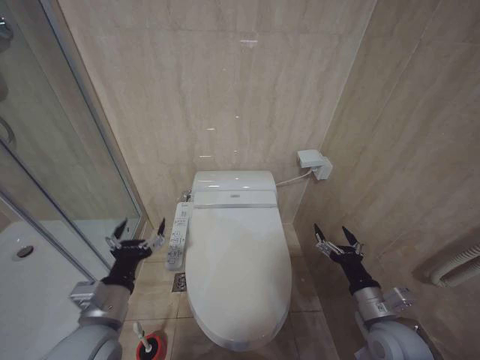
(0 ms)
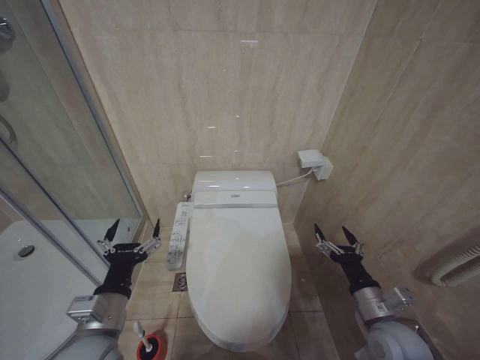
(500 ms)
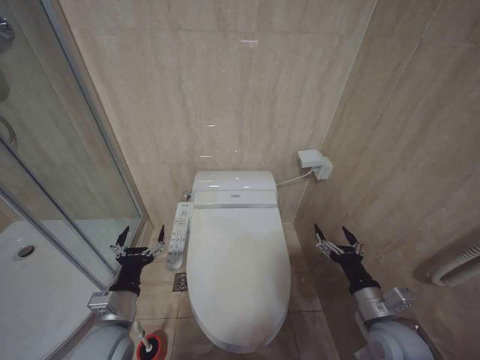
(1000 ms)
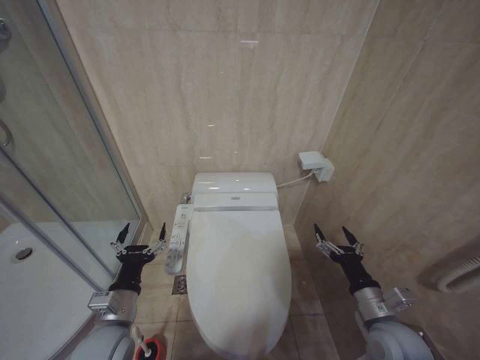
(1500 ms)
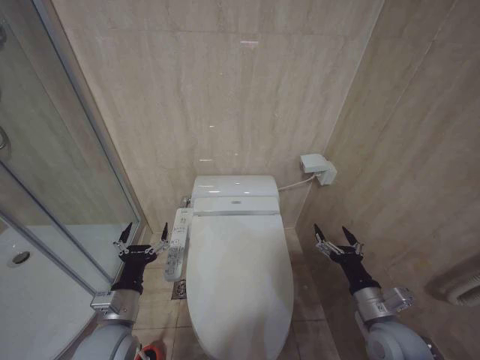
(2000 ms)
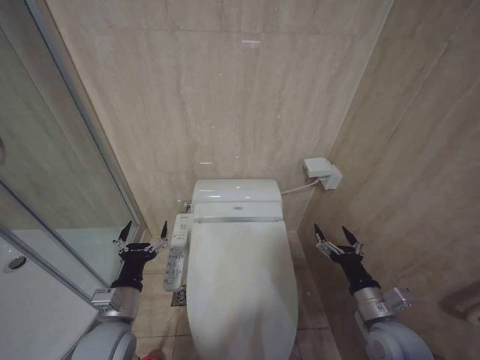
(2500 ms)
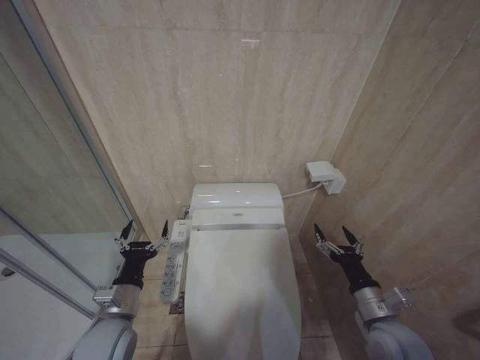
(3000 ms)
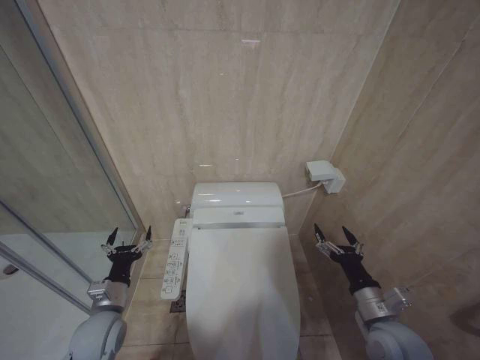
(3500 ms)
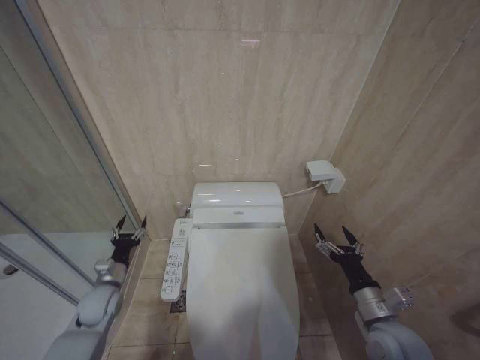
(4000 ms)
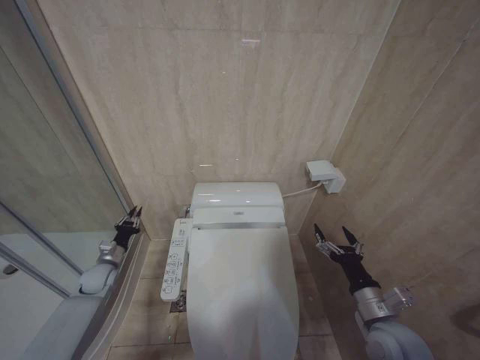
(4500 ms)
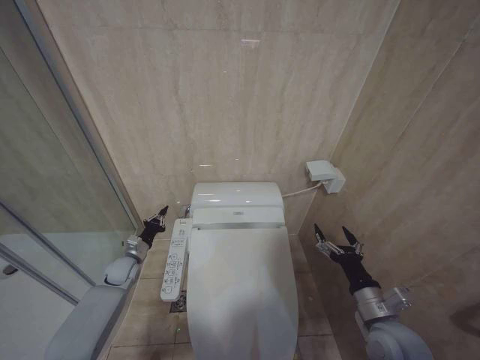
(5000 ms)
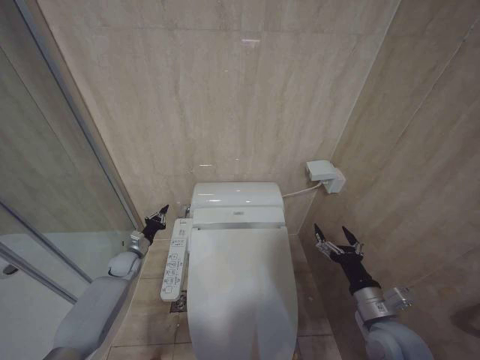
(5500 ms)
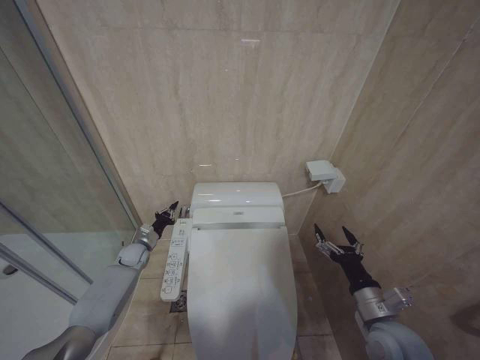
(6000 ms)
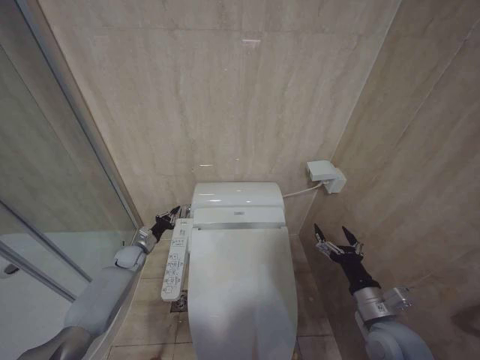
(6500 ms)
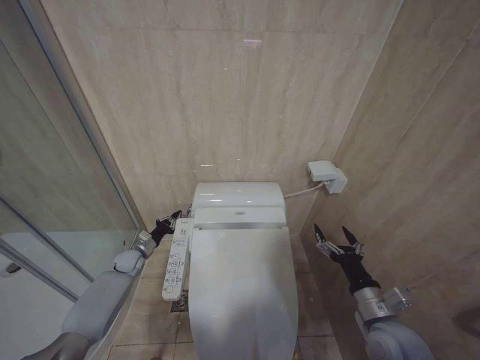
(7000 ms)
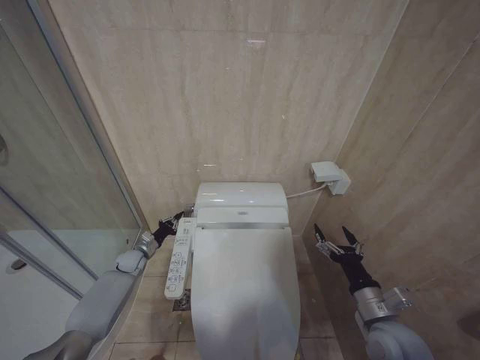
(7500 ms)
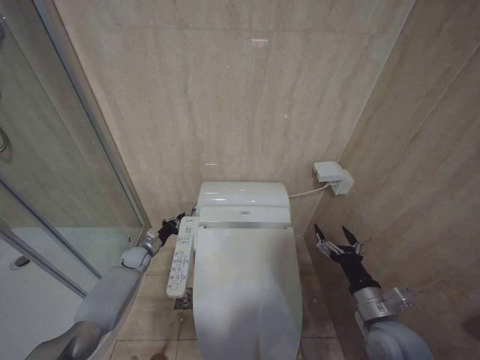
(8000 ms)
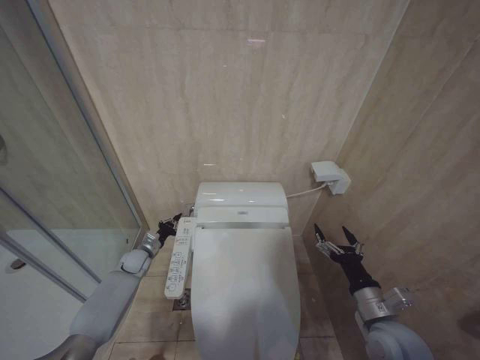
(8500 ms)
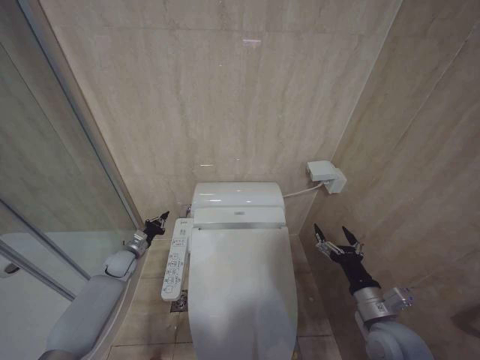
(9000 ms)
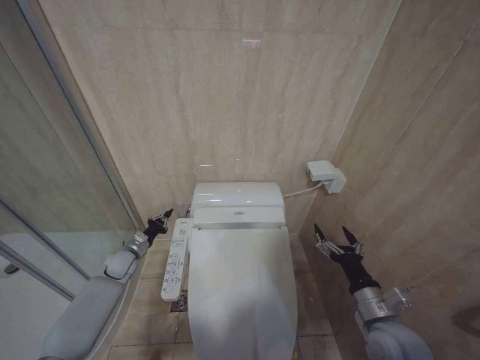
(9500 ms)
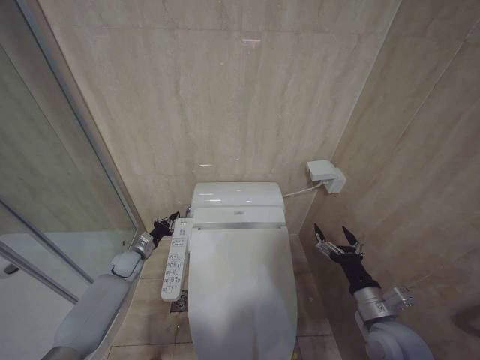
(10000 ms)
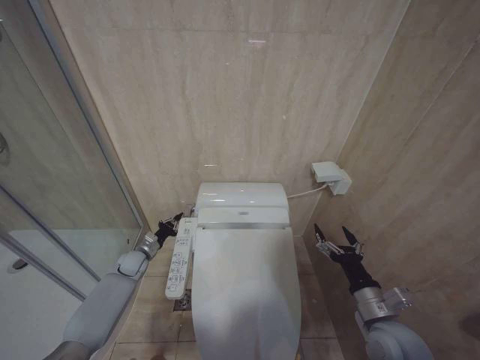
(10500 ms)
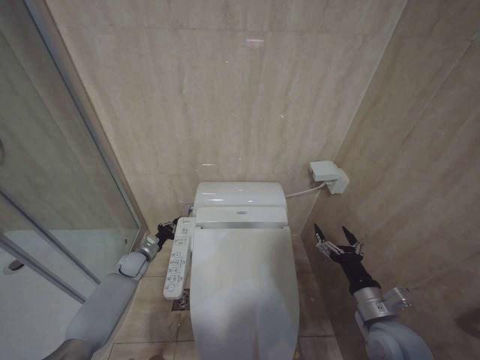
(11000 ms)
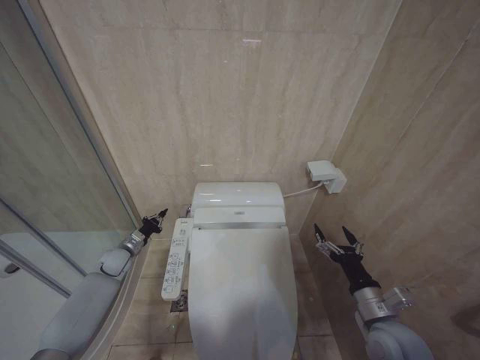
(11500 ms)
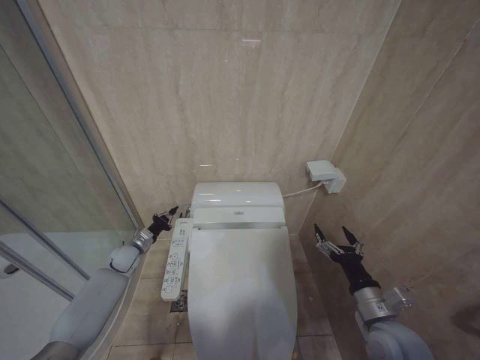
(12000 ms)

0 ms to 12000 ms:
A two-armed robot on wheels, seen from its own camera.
Task of the whole recording: Open the toilet lid, clean the toilet bowl with a toilet brush, close the toilet lid, and flush.
0 ms to 2000 ms: The left gripper moves about 5 cm.
2000 ms to 4000 ms: The left gripper is displaced forward, to the left and downward by some 20 cm.
4000 ms to 6000 ms: The left gripper travels forward by about 15 cm, and closes its fingers.
6000 ms to 8000 ms: There are only small adjustments of the grippers.

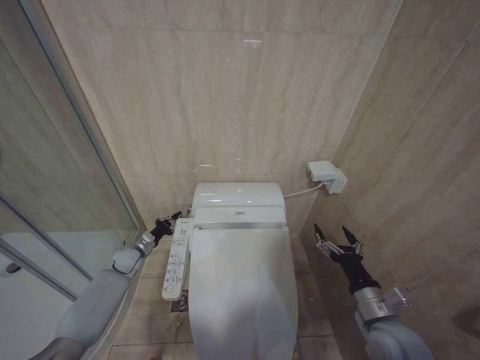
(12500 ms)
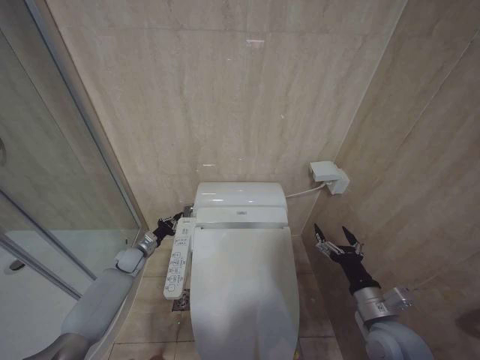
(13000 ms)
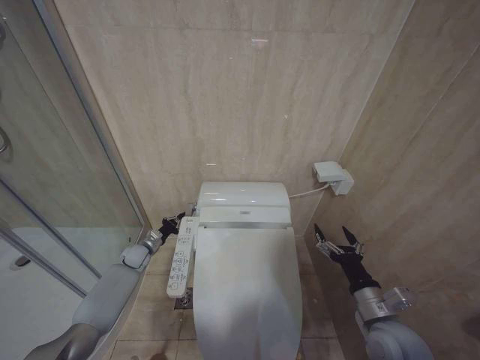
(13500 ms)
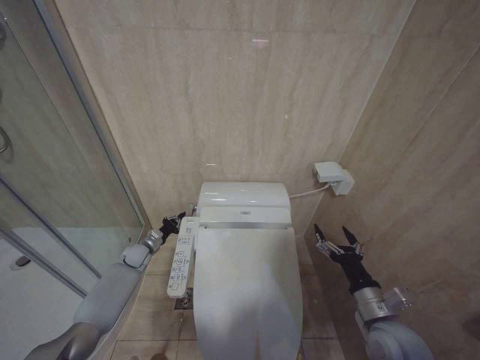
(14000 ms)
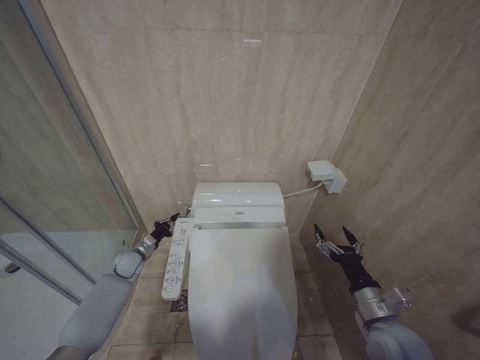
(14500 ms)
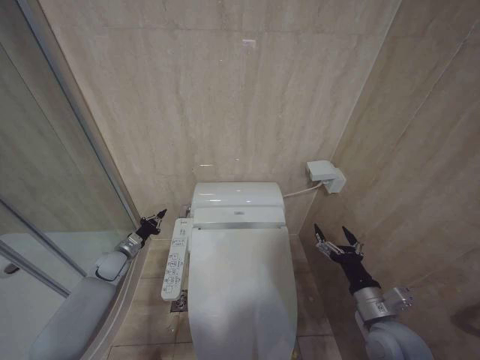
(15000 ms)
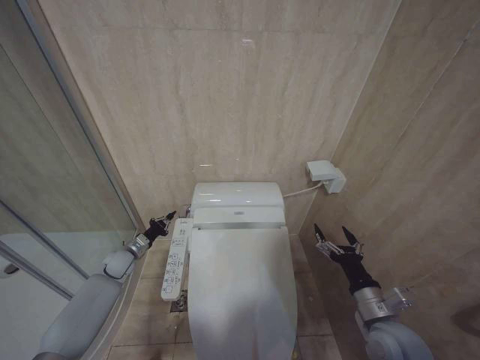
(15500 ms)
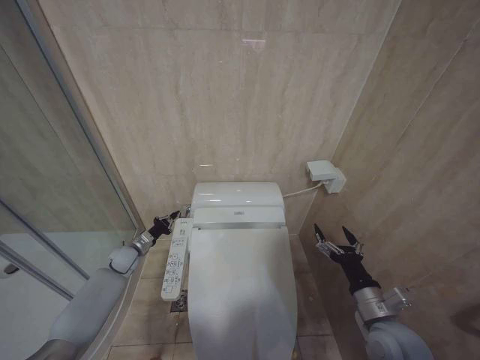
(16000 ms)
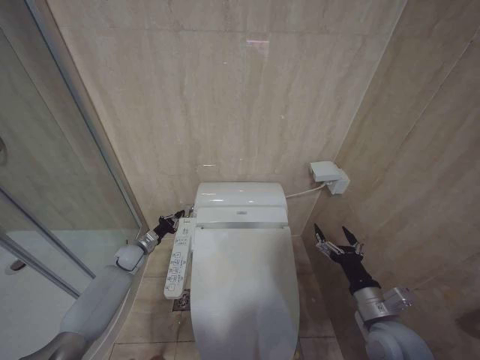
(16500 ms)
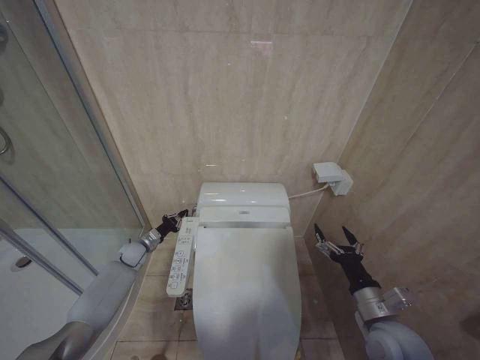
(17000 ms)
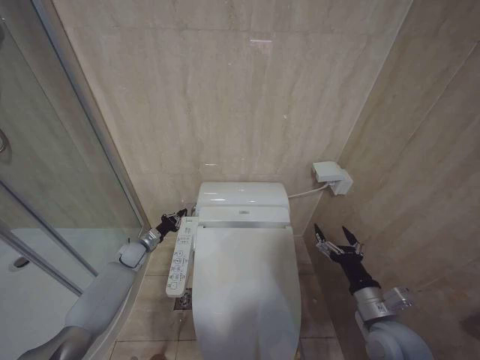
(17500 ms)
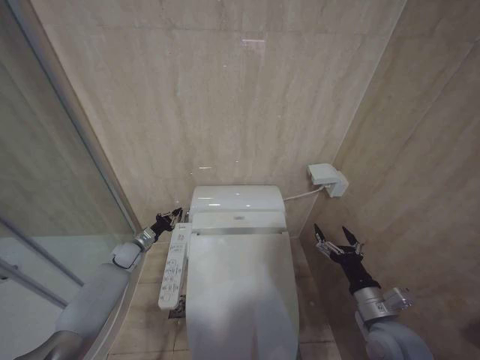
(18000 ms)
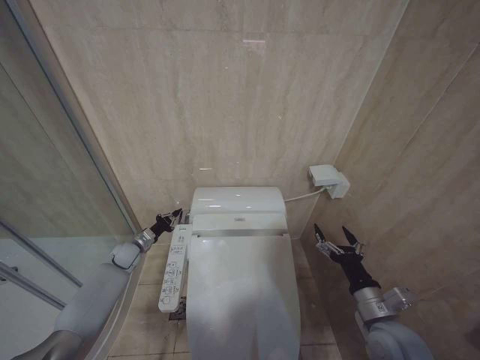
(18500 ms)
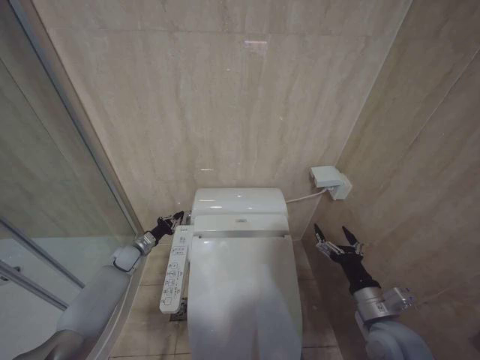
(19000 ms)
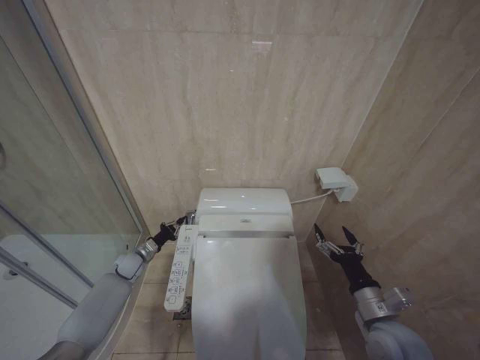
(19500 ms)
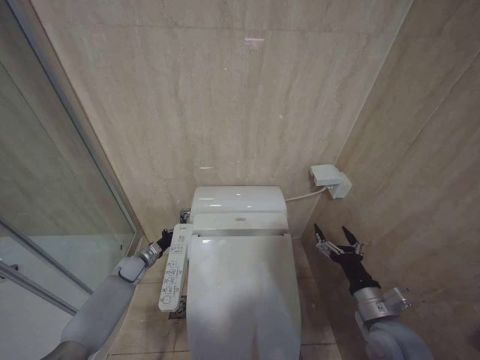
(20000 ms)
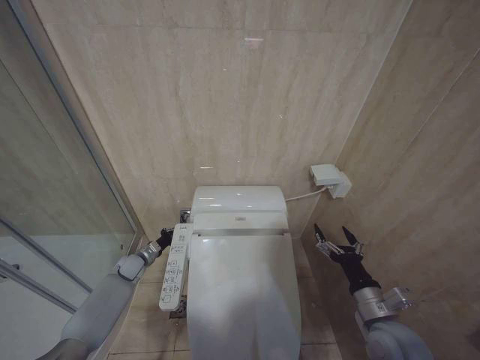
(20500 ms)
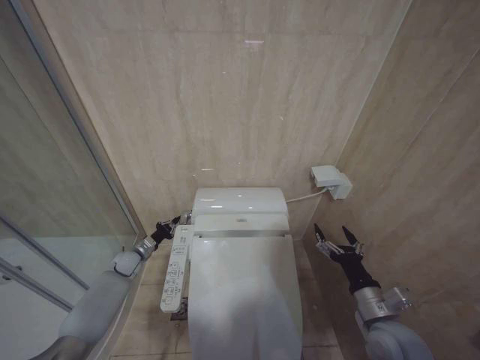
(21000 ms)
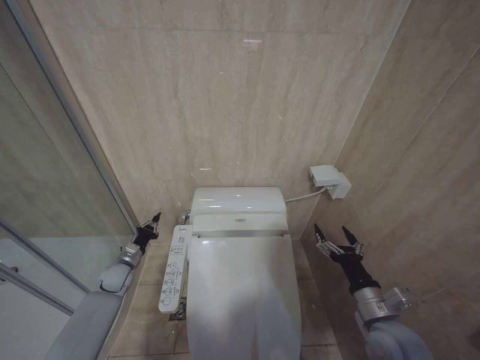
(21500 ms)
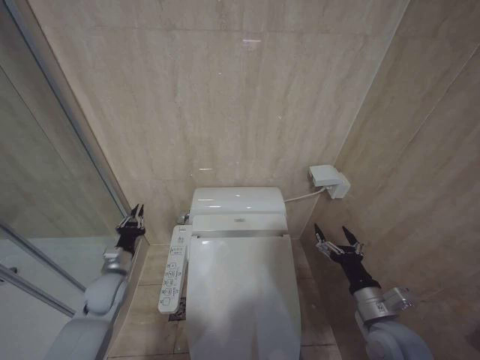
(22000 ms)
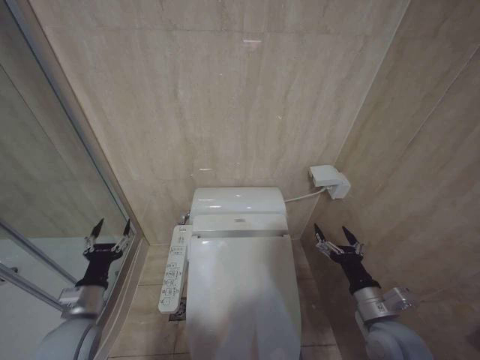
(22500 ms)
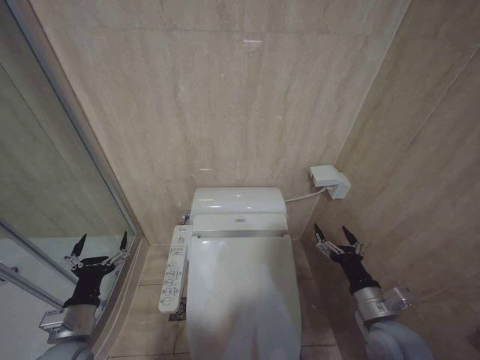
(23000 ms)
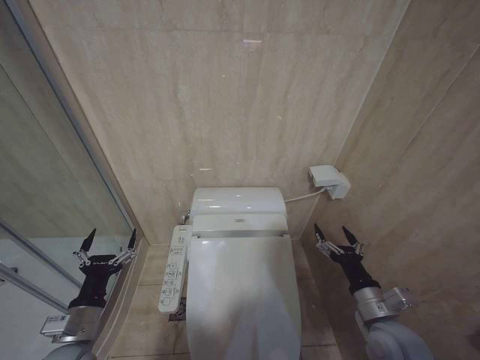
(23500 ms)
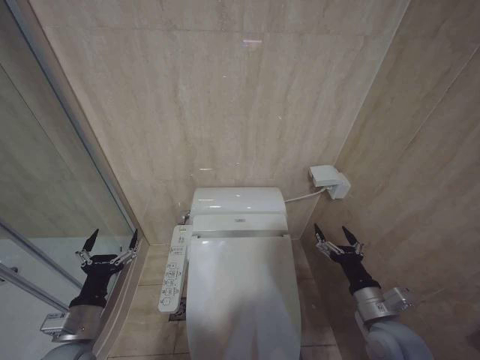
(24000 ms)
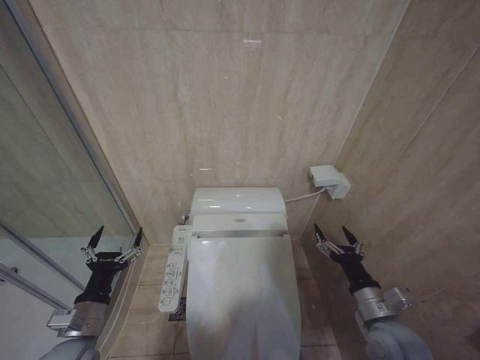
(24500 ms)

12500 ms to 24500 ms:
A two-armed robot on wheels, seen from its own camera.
Task of the whole recording: Open the toilet lid, clean the toilet bowl with a toilet brush, close the toilet lid, and flush.
14500 ms to 20500 ms: The grippers stay close to where they were, moving slightly.
20500 ms to 22500 ms: The left gripper moves backward and upward, approximately 25 cm, and opens.
22500 ms to 24500 ms: The left gripper heads backward, covering approximately 5 cm, and opens.

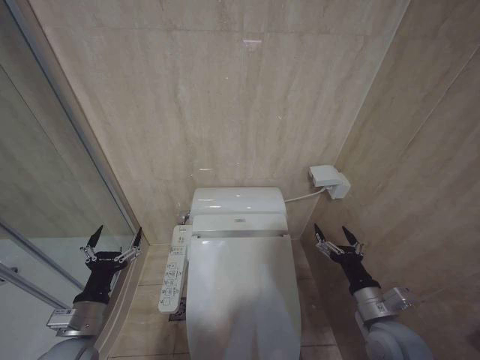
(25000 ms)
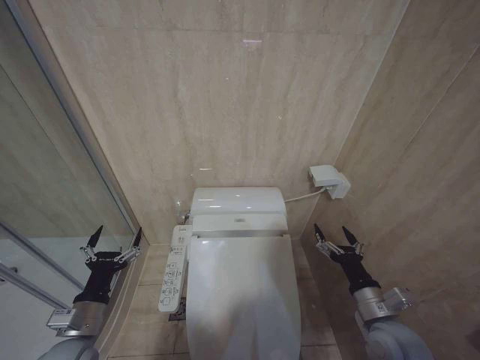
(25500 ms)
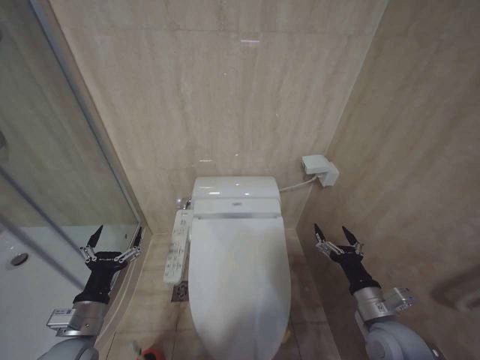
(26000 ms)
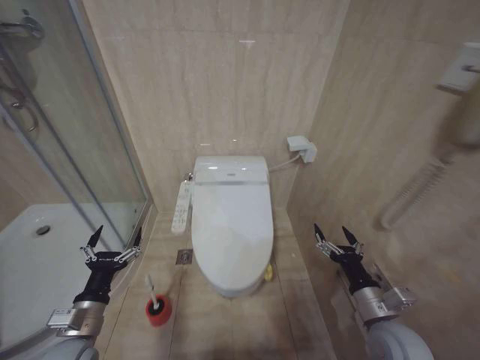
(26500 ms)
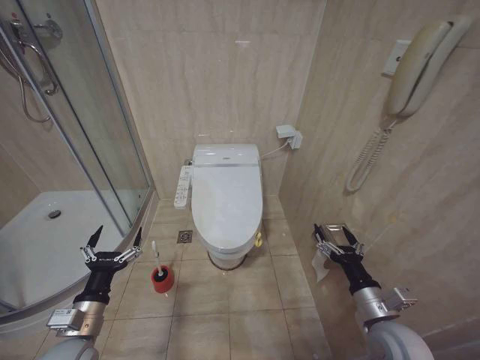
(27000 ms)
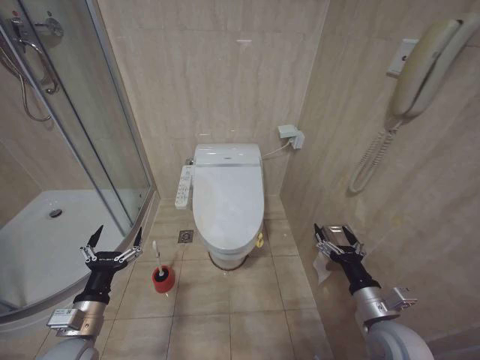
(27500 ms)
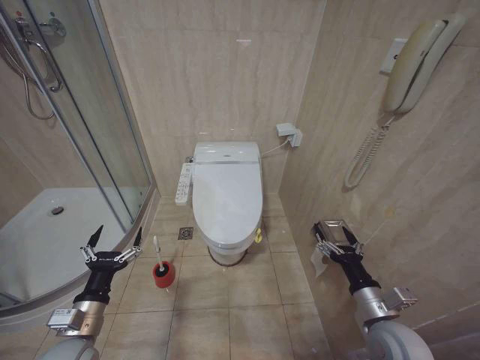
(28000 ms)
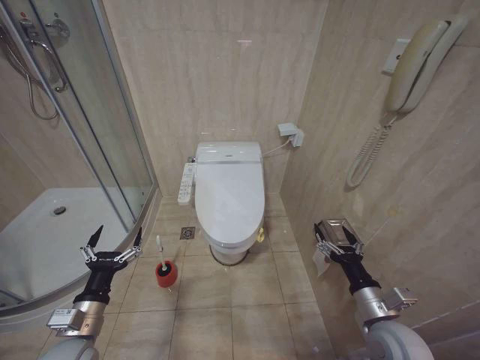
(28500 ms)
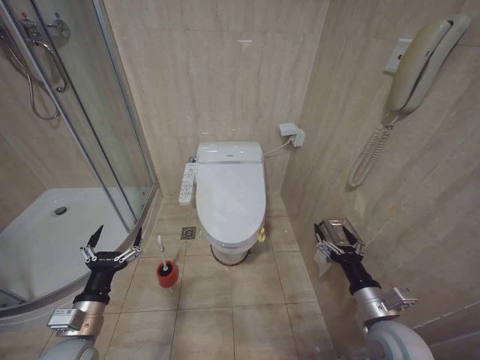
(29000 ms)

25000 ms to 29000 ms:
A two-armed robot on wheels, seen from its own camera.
Task of the whole recording: Open the toilet lid, clean the toilet bowl with a toilet brush, close the toilet lid, and flush.
27000 ms to 29000 ms: Both grippers stay put.
